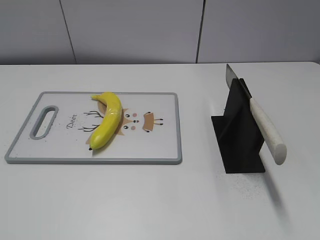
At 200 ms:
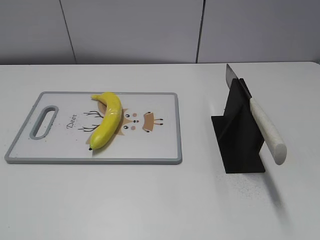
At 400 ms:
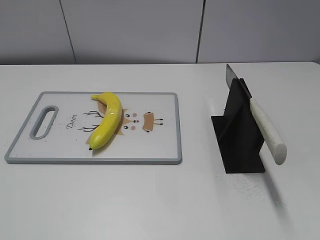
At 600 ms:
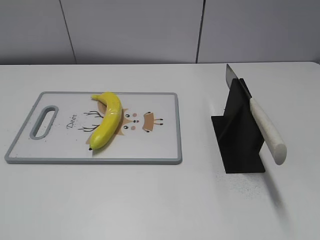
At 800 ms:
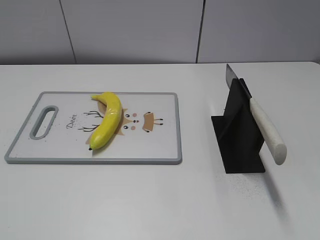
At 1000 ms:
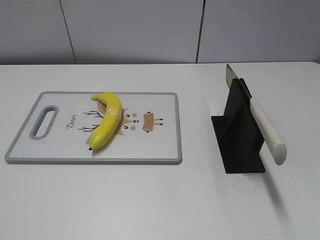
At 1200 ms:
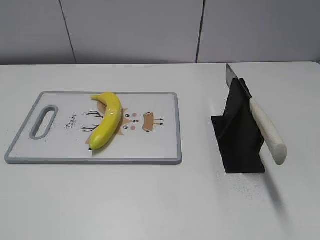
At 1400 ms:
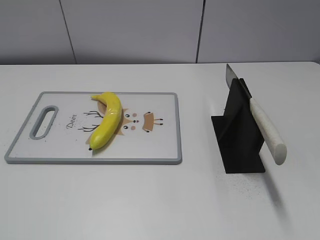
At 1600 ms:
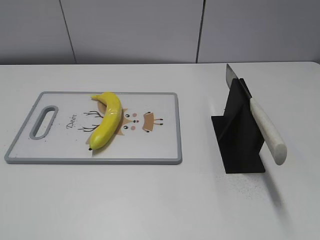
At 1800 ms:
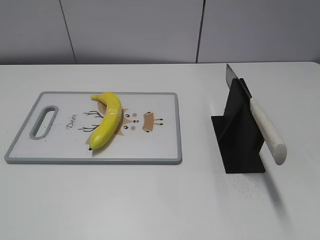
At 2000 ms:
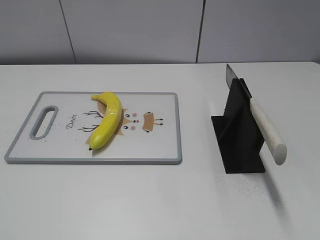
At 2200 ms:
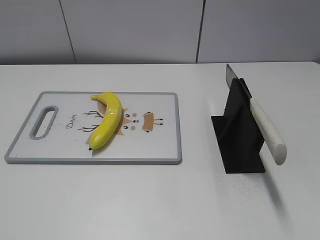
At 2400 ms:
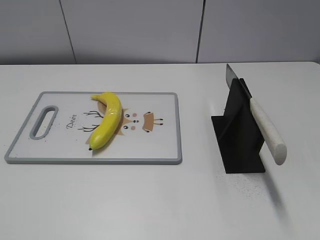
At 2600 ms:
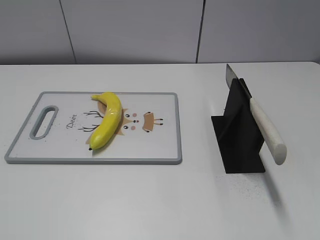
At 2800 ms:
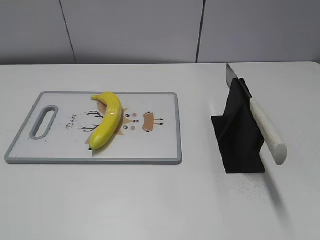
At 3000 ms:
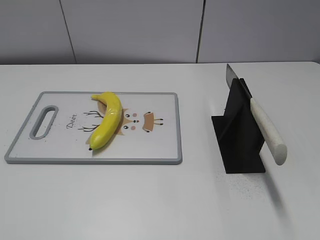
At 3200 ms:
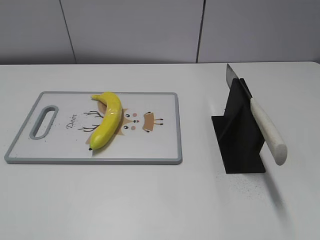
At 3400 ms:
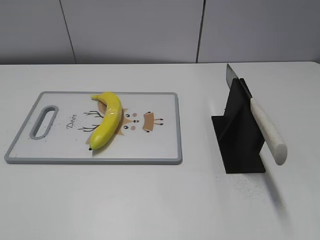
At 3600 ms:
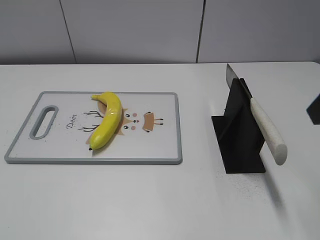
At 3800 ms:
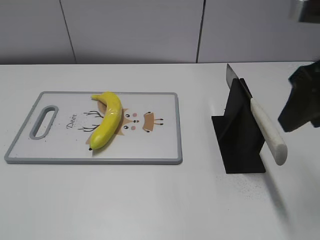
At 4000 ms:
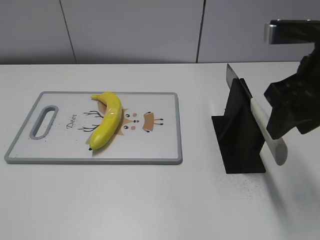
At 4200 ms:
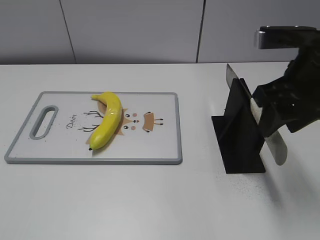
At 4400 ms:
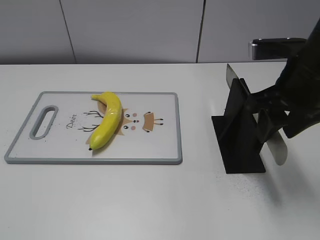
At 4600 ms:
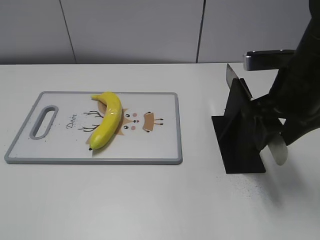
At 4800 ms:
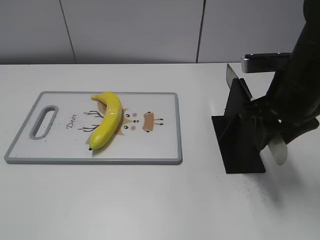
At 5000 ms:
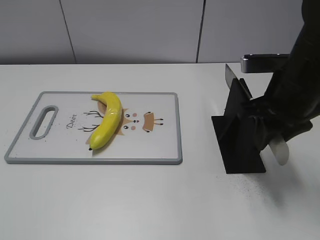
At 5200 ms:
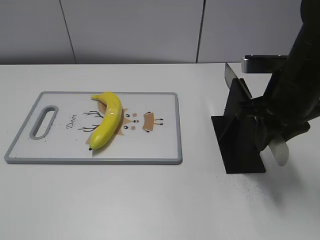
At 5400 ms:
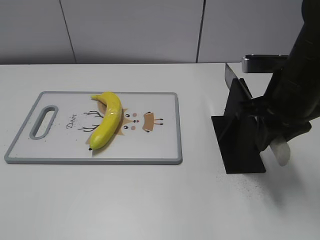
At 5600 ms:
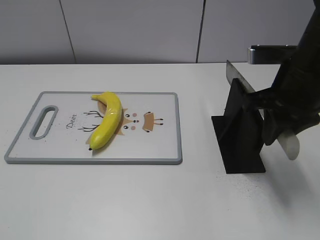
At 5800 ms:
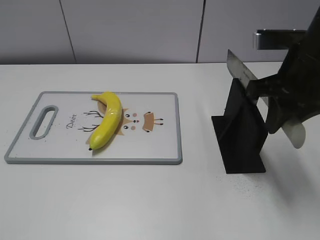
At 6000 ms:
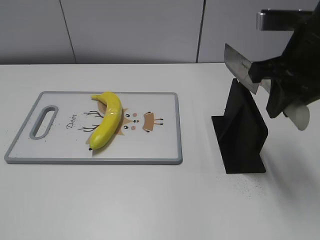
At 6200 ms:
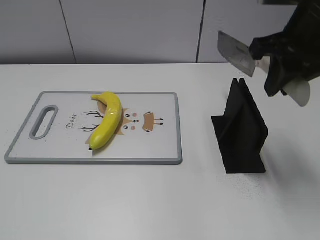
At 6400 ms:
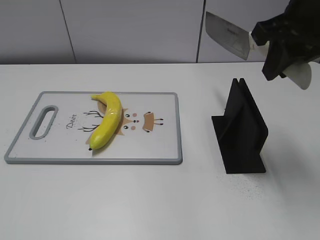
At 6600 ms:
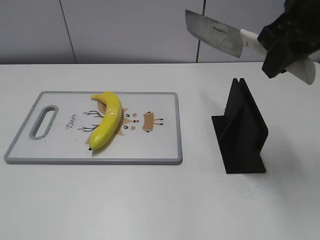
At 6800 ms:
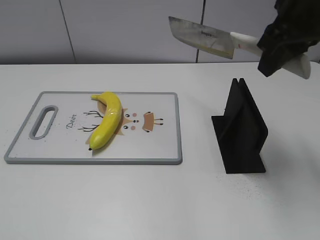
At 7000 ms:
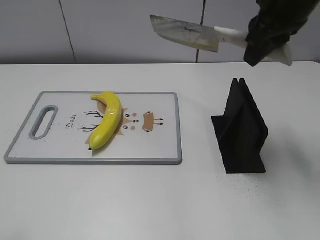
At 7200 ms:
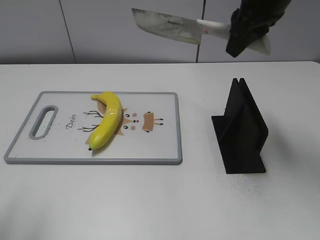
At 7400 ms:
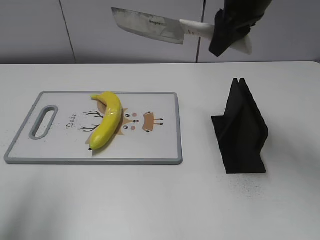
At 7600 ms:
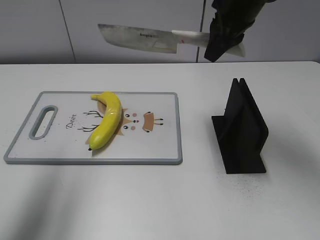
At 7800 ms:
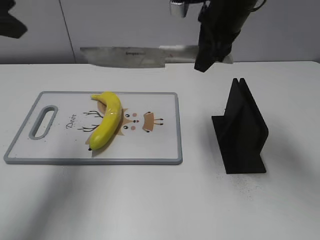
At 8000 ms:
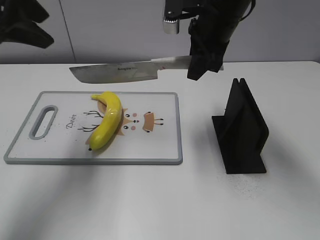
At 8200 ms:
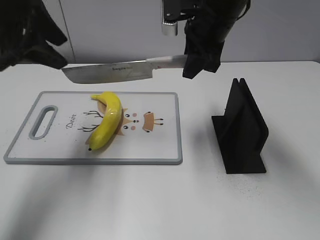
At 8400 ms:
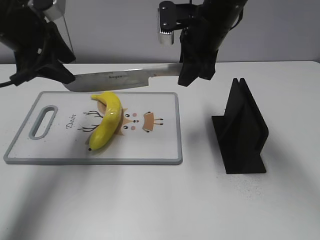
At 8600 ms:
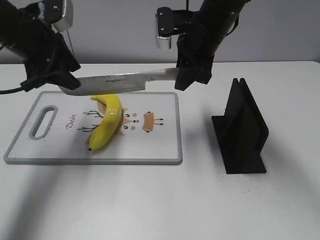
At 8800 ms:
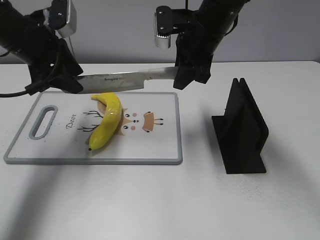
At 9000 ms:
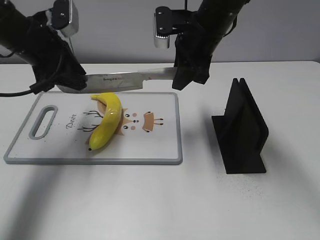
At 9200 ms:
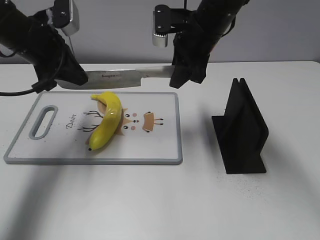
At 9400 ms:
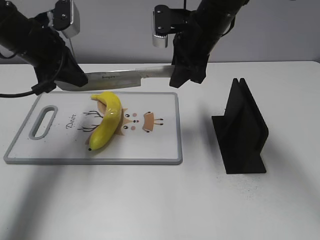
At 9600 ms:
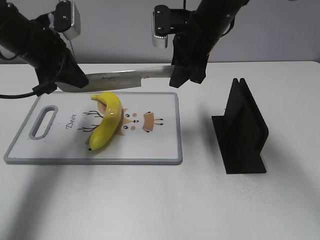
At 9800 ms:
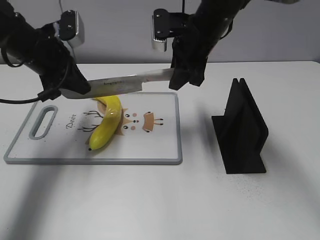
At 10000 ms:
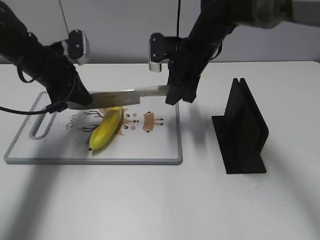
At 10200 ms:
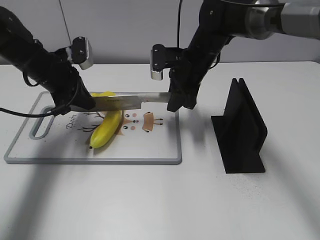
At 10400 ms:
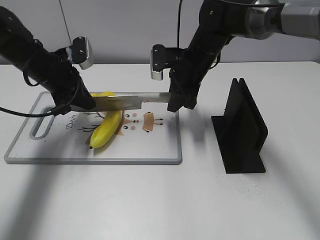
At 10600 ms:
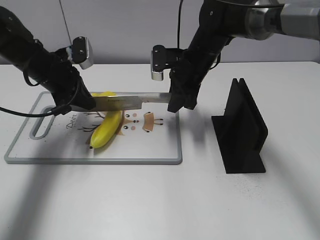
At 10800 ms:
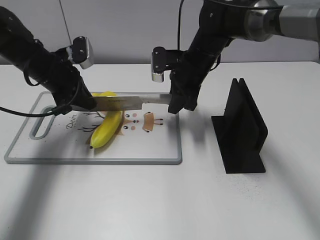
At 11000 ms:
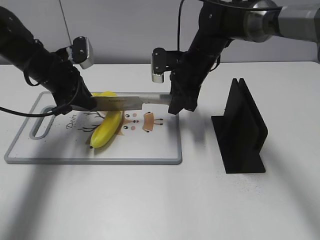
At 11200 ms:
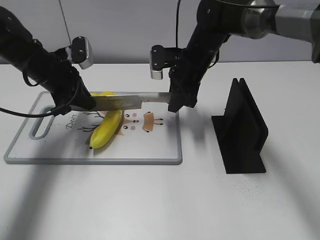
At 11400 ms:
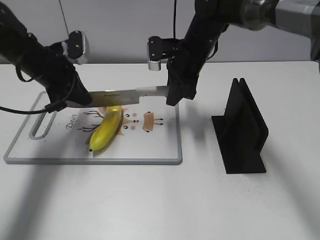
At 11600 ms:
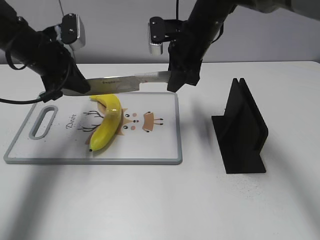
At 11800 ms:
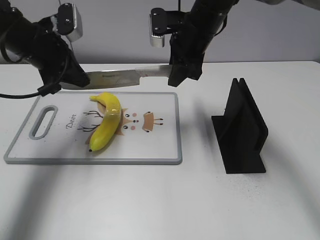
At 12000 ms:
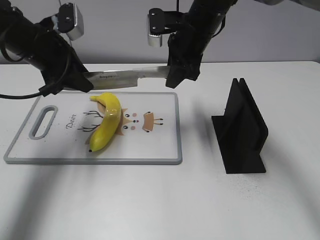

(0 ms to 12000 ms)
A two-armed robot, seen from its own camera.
Task of the whole recording: cut plastic banana.
Step, 0 ms - 6200 ms: Grab the knife handle with your right hand.
Step, 6600 ms - 11400 ms: Lift the knife with your right hand.
3000 ms - 4400 ms: The right gripper moves forward, downward and to the left, roughly 20 cm, and closes up.
4400 ms - 6000 ms: The right gripper closes up.
6000 ms - 7600 ms: The right gripper moves forward and to the left, about 15 cm. Meanwhile the left gripper is displaced forward and upward by some 25 cm.
7600 ms - 9000 ms: The left gripper heads forward and downward, covering roughly 20 cm, while the right gripper goes roughly 5 cm downward.
9000 ms - 10400 ms: Both grippers move downward, roughly 10 cm. The left gripper closes.
10400 ms - 12000 ms: The two grippers go approximately 5 cm upward. The left gripper opens.

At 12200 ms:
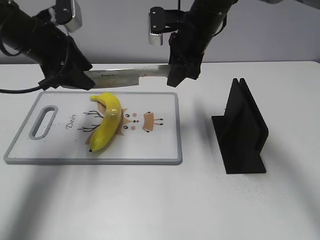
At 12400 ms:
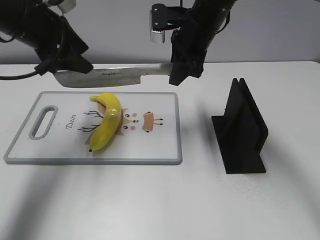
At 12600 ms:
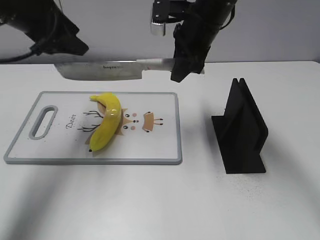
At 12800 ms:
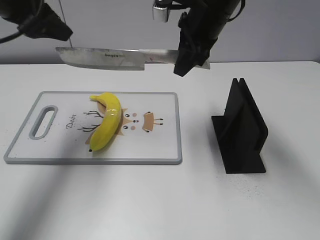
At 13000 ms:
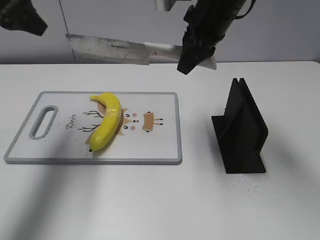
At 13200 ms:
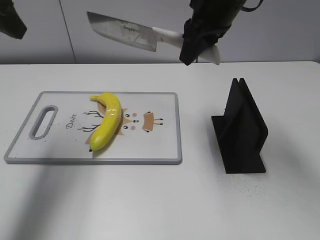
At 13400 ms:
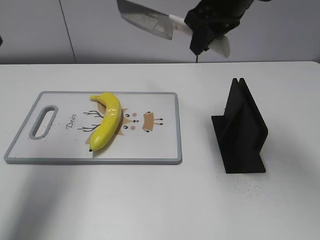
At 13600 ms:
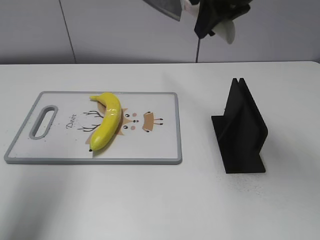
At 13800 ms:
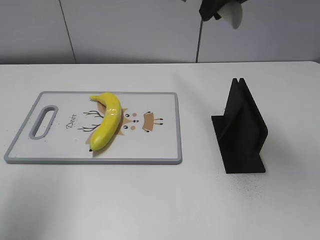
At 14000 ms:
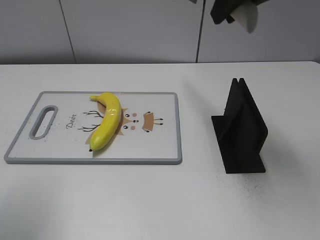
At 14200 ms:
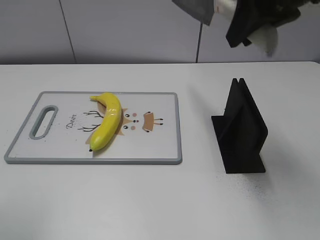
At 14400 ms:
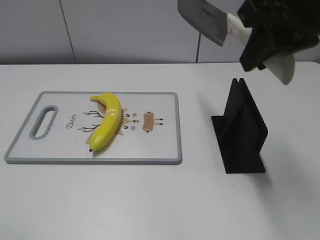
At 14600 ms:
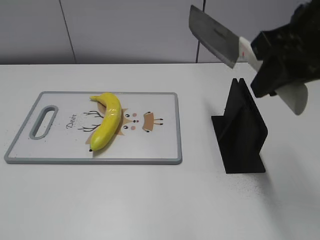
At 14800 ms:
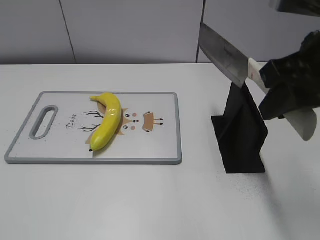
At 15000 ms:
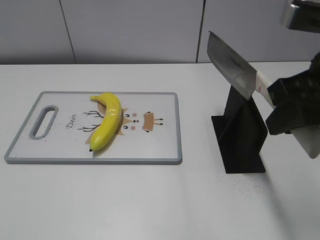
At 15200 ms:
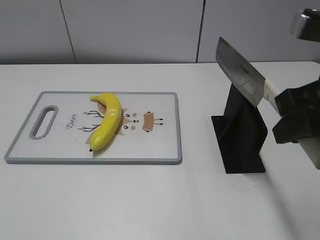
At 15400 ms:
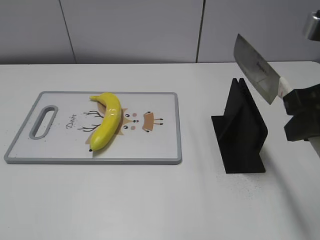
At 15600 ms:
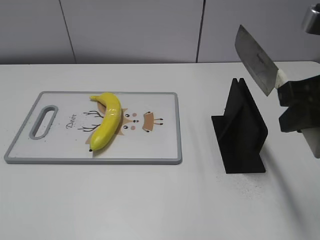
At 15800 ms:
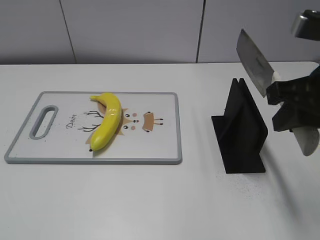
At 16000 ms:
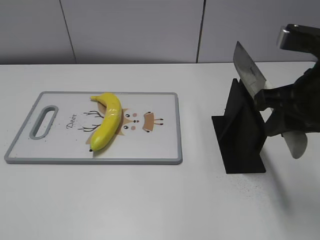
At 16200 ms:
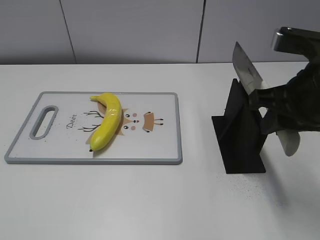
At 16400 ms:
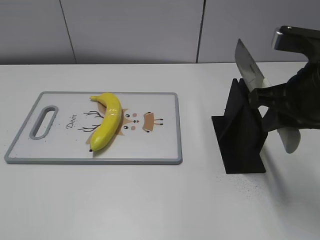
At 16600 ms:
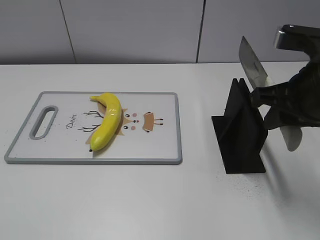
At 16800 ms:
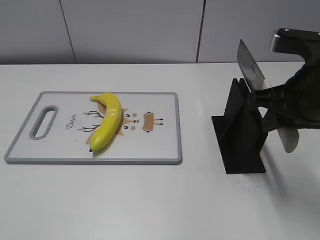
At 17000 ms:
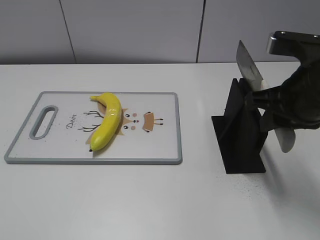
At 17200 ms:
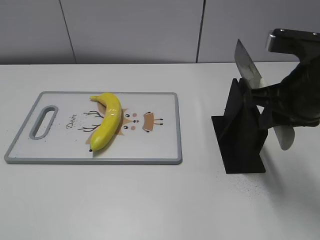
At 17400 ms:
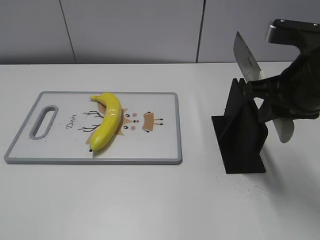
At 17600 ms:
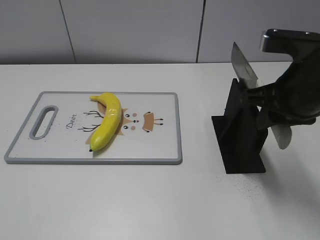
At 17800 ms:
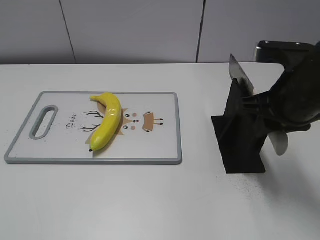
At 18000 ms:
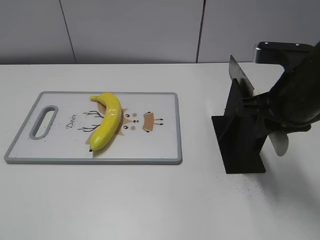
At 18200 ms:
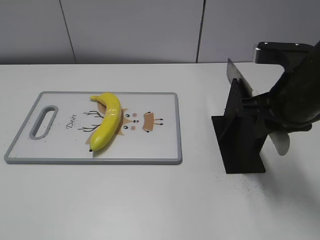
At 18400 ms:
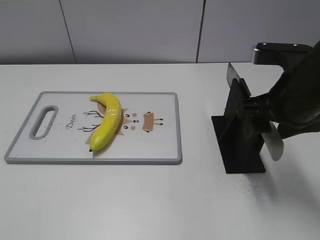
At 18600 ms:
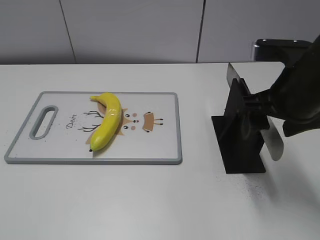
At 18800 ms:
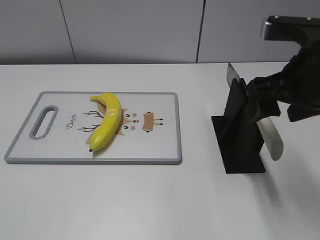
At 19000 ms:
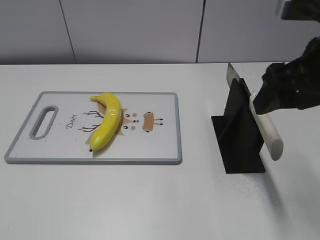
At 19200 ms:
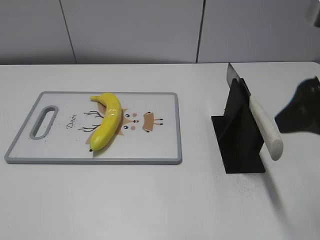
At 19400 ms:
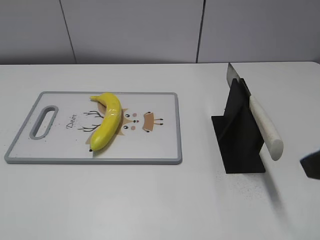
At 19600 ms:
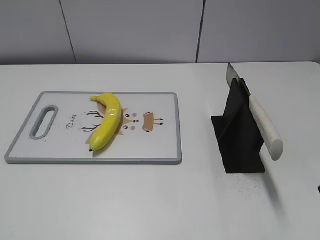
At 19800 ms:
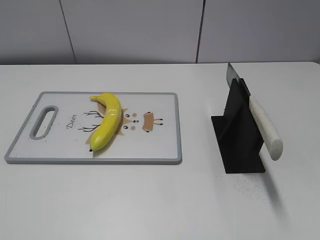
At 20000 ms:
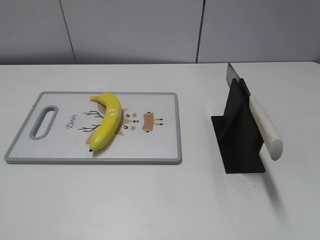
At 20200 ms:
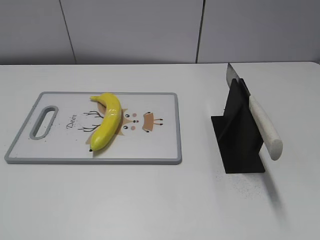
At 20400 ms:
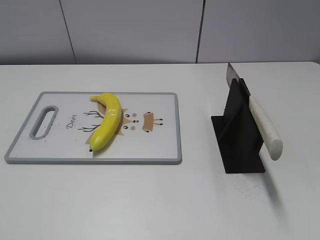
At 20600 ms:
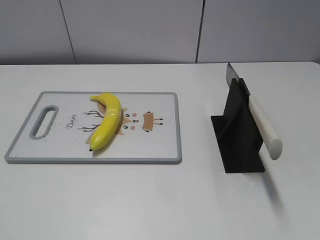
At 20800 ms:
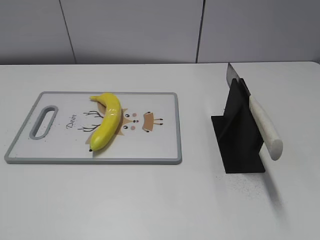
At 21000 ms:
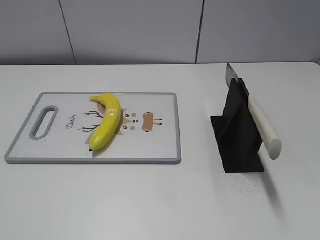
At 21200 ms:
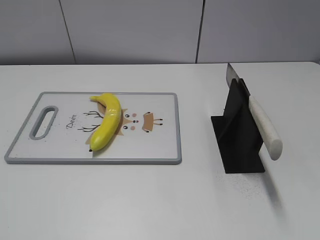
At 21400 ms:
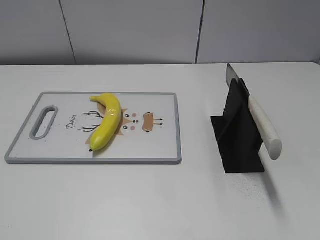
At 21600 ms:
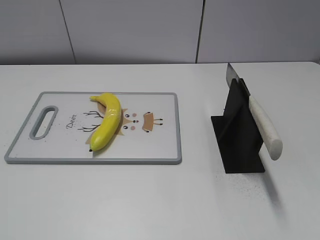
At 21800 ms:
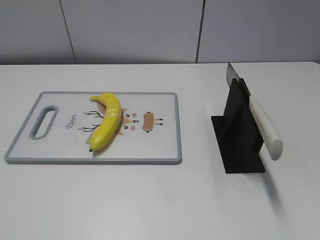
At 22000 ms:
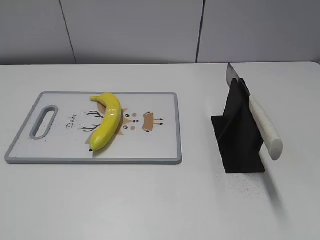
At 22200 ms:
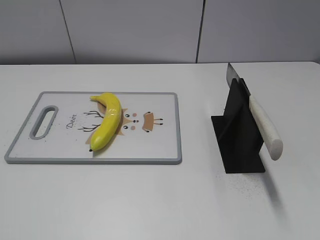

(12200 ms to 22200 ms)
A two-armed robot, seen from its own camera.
Task of the whole recording: cut plastic banana.
Step, 12200 ms - 13600 ms: Cut the banana with your right hand.
Step, 13800 ms - 14600 ms: Secure the blade with your left hand.
Step, 15000 ms - 22200 ms: Place the knife on the storage rack with your right hand.
12200 ms - 13600 ms: The left gripper is displaced upward, backward and to the left by roughly 20 cm; the right gripper shifts approximately 15 cm upward and backward.
13600 ms - 15000 ms: The right gripper shifts roughly 20 cm backward and to the right. Meanwhile the left gripper shifts approximately 25 cm backward.
15000 ms - 16400 ms: The right gripper ends up about 5 cm from where it was.
16400 ms - 18000 ms: There are only small adjustments of the grippers.
18000 ms - 19400 ms: The right gripper goes roughly 15 cm backward and upward, and opens.
